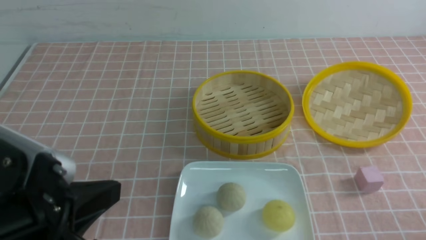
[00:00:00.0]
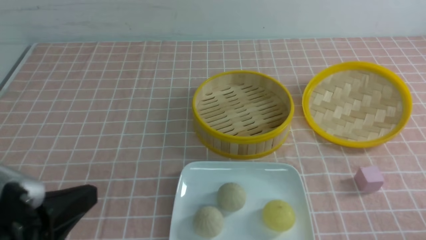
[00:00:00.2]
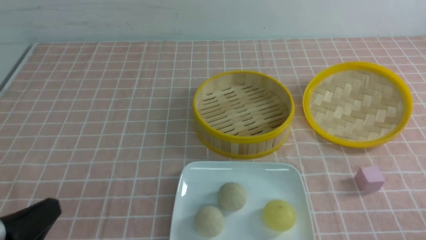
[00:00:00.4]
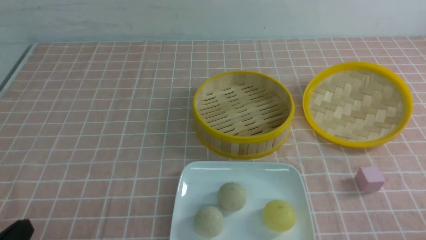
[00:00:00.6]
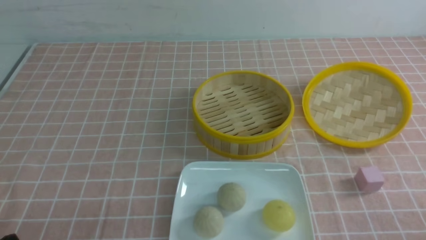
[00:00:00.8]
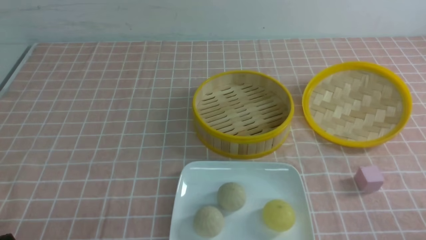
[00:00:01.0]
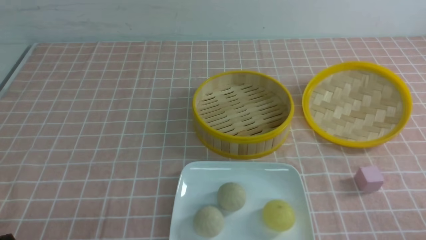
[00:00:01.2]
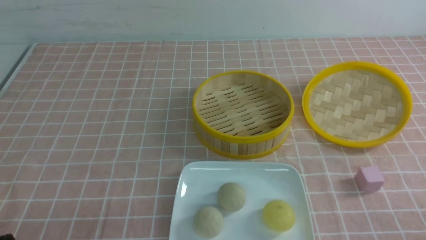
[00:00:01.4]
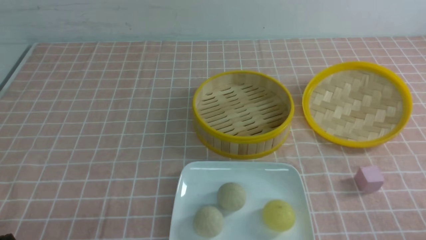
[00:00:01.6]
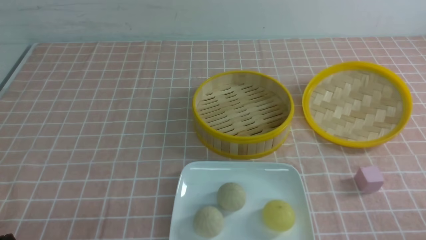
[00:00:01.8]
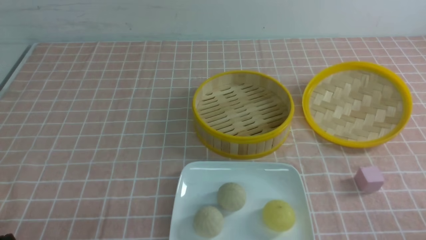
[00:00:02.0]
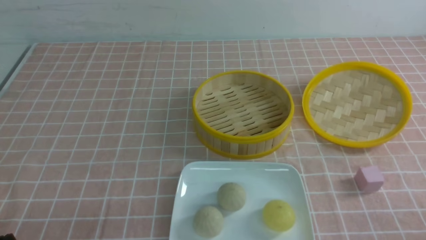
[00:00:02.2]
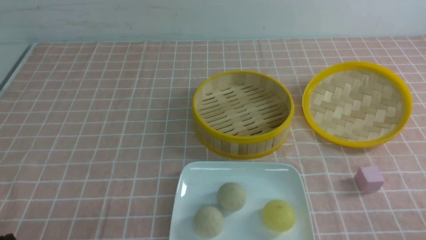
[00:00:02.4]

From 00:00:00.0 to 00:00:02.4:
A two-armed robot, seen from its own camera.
From 00:00:00.0 to 00:00:01.2: The left gripper moves downward and to the left, about 15 cm.
From 00:00:01.2 to 00:00:02.4: Neither gripper changes place.
